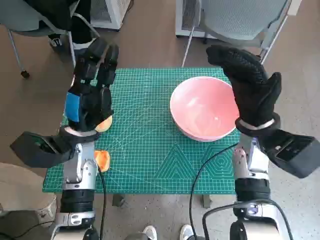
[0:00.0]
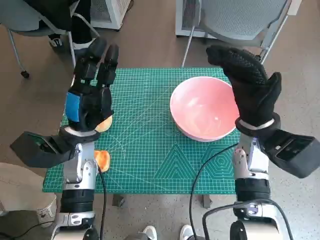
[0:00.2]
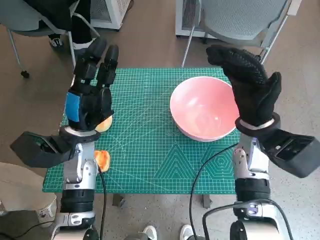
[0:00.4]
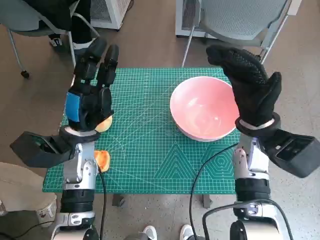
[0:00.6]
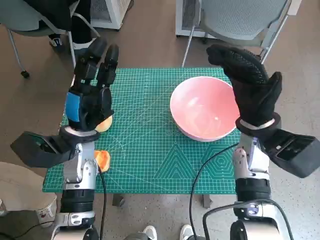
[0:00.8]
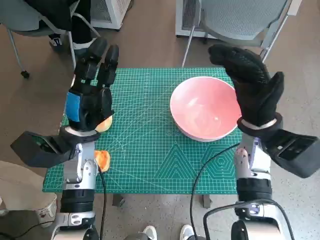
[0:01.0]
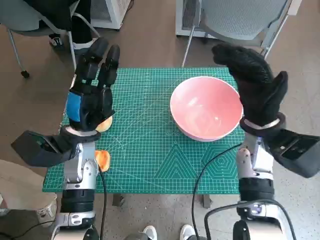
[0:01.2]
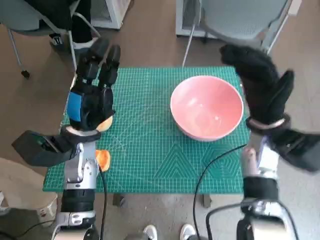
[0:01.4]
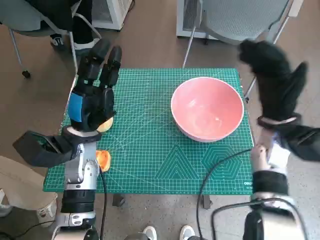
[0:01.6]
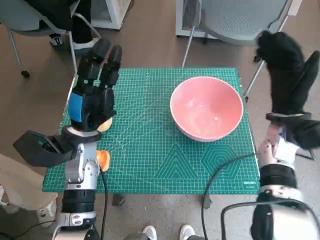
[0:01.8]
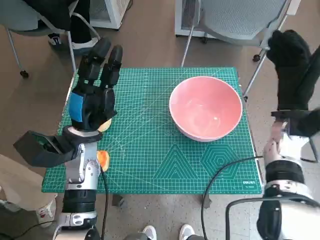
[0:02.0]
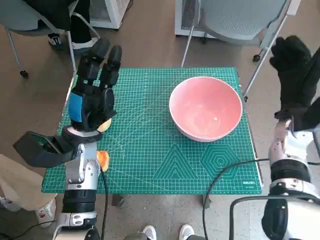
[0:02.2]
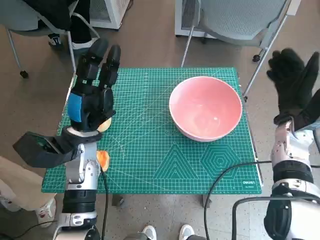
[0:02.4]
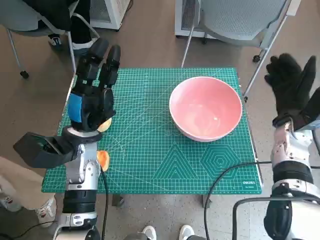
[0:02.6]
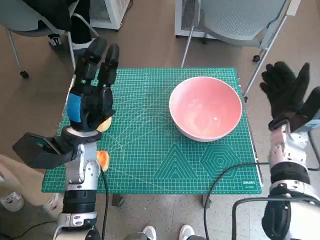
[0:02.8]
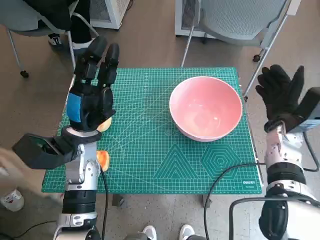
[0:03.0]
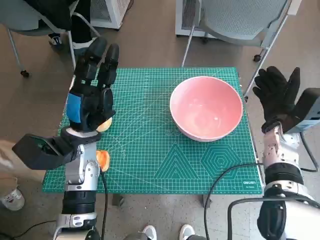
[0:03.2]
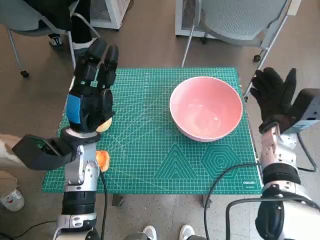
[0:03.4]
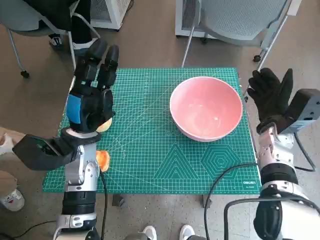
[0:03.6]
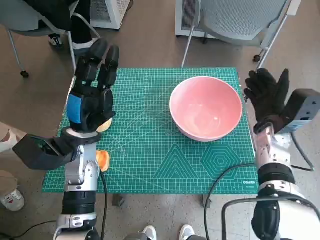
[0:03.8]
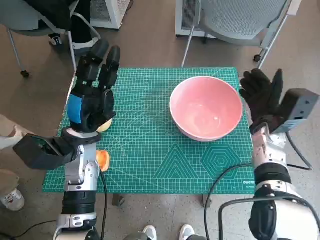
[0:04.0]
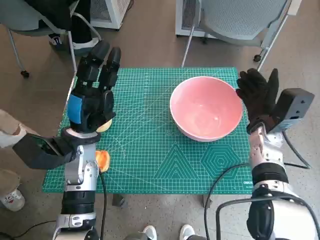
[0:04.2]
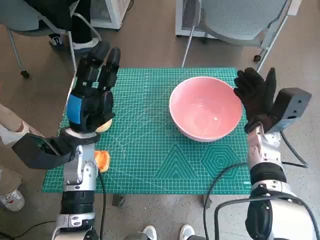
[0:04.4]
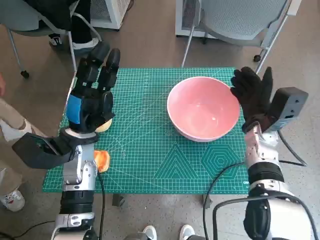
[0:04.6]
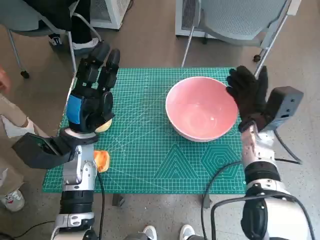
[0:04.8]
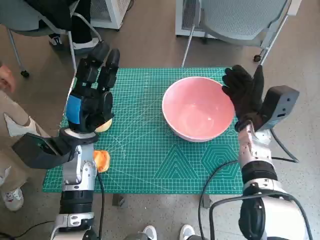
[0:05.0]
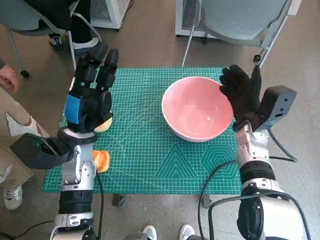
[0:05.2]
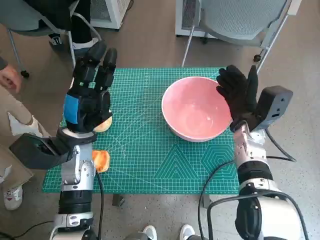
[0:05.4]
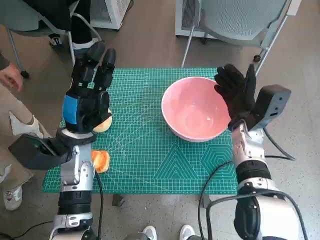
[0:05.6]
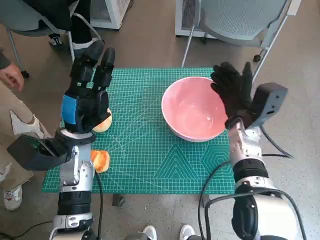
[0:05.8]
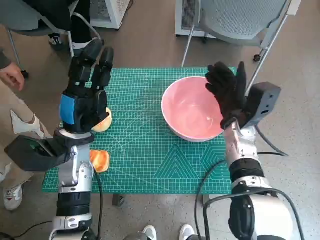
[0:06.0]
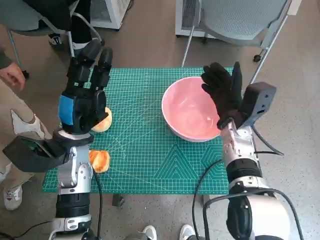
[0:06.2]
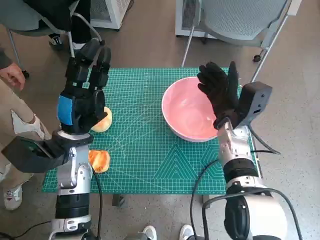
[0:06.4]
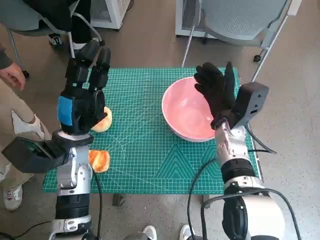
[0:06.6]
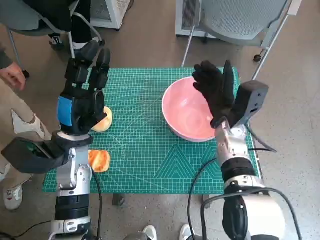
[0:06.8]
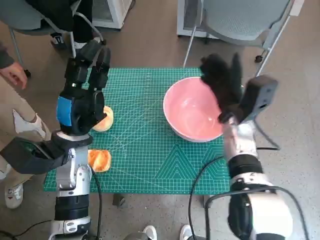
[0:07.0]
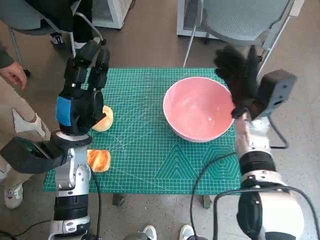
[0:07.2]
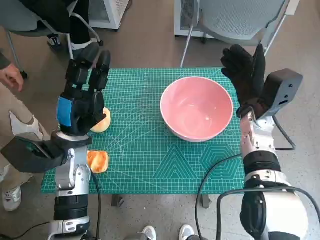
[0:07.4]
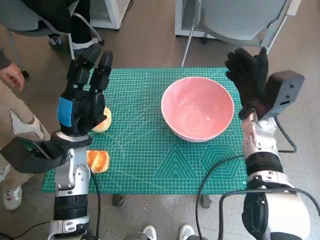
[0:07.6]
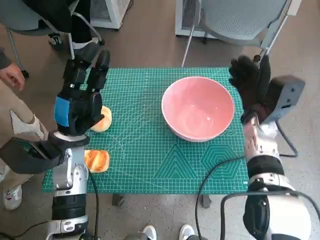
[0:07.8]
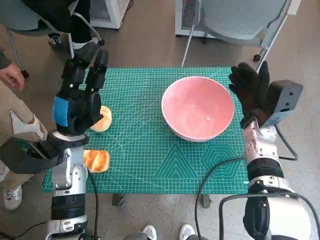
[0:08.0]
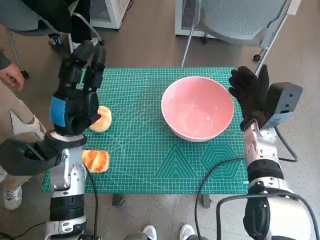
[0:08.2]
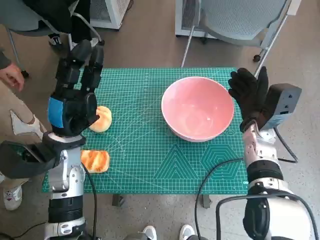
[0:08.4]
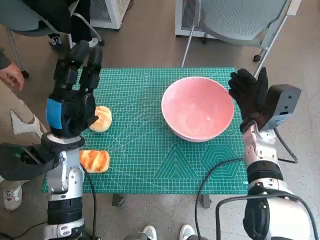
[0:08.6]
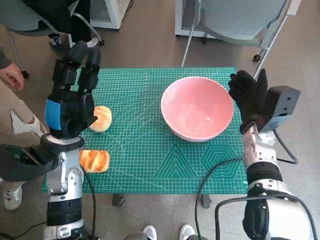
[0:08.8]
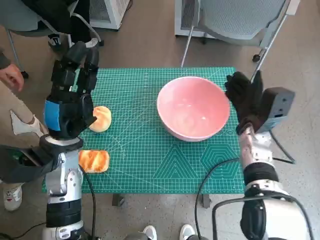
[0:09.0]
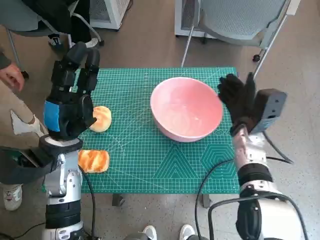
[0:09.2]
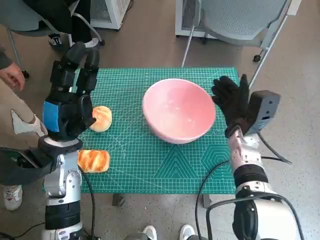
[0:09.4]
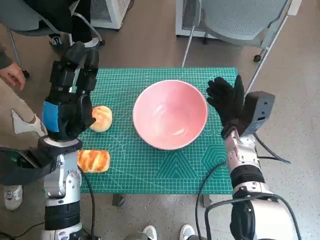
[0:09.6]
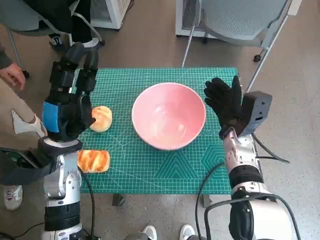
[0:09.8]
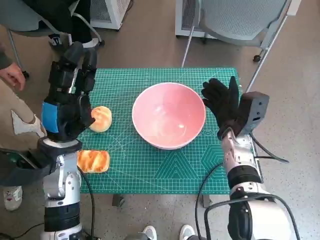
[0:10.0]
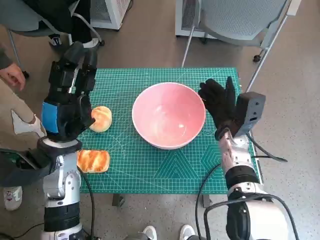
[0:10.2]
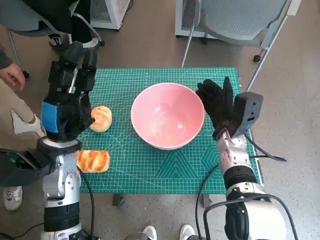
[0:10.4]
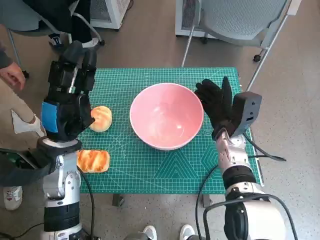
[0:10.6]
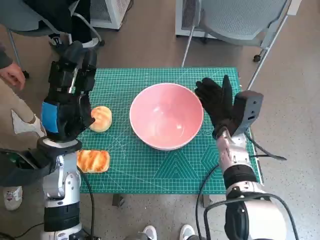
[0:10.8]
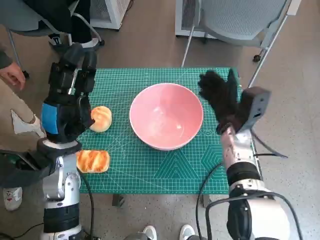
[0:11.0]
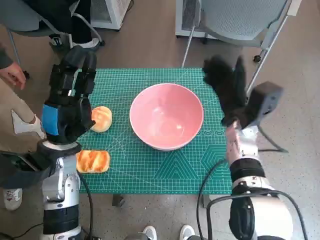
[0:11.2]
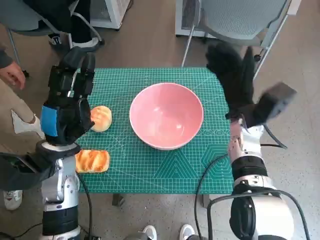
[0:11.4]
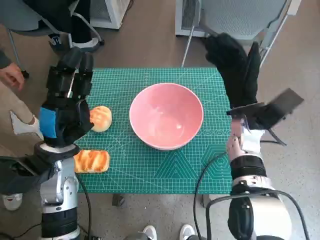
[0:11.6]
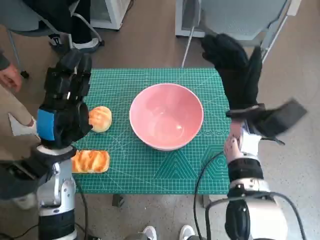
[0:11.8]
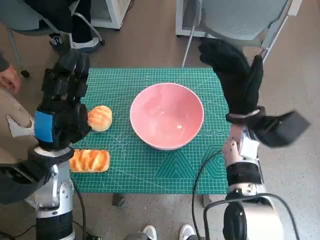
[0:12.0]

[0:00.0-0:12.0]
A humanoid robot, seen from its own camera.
Step, 0:00.0 to 0:11.0: Move the pink bowl to the center of table with right hand.
0:01.6 to 0:03.0: The right hand ends up some 5 cm from where it was.
0:03.0 to 0:04.4: The hands stay close to where they were, moving slightly.
0:04.4 to 0:06.0: The right hand travels to the left by some 5 cm.
0:09.0 to 0:10.4: The right hand moves about 5 cm.
0:10.4 to 0:12.0: The right hand travels upward by roughly 5 cm.

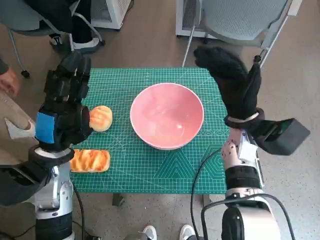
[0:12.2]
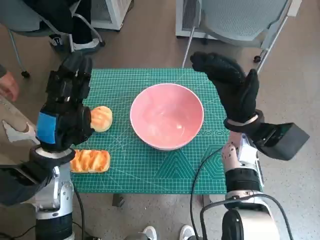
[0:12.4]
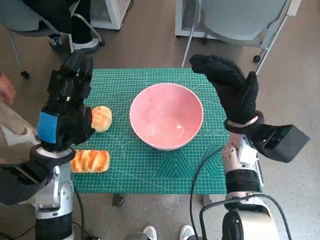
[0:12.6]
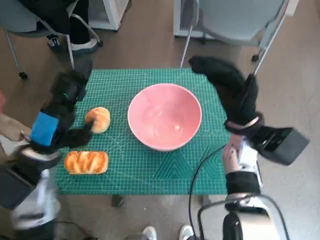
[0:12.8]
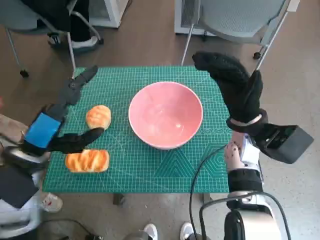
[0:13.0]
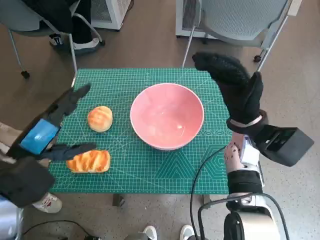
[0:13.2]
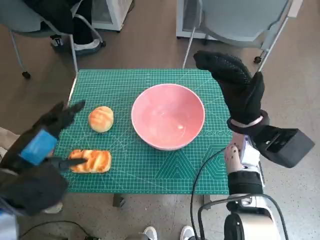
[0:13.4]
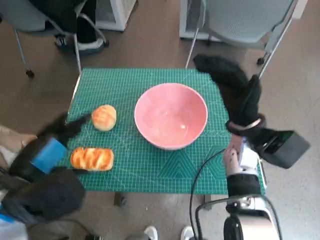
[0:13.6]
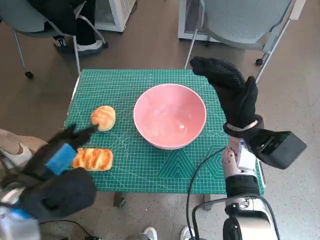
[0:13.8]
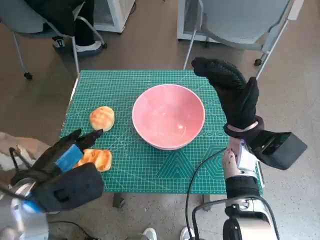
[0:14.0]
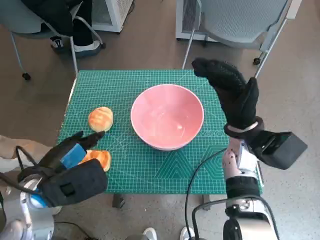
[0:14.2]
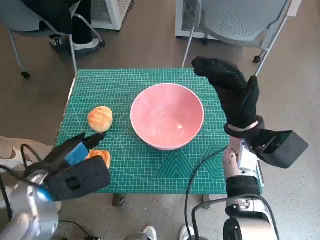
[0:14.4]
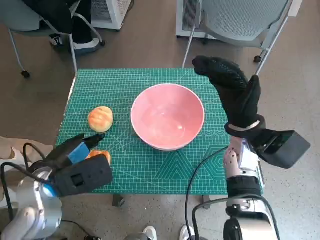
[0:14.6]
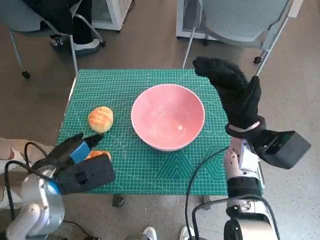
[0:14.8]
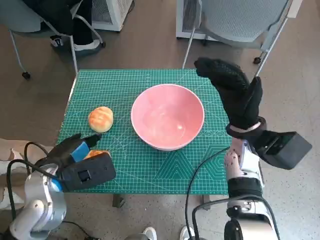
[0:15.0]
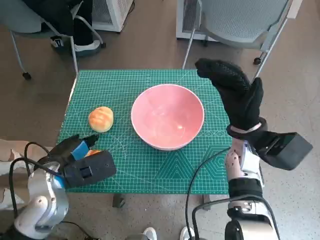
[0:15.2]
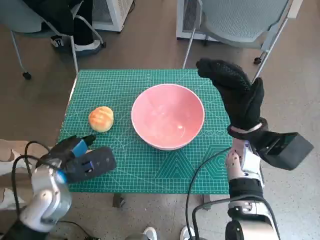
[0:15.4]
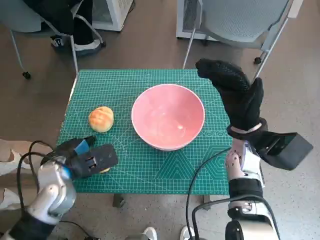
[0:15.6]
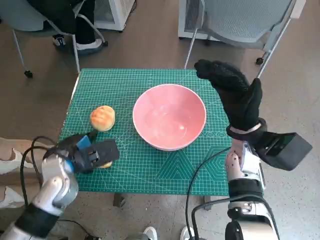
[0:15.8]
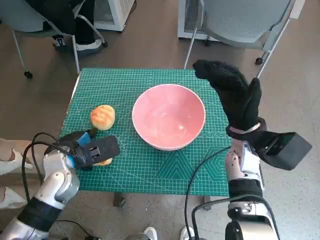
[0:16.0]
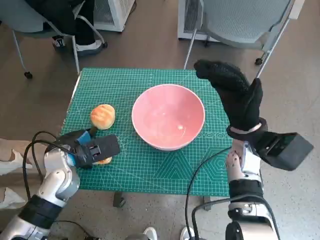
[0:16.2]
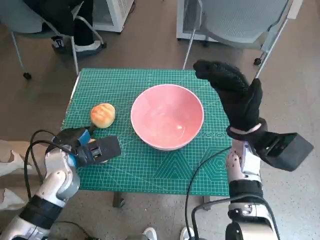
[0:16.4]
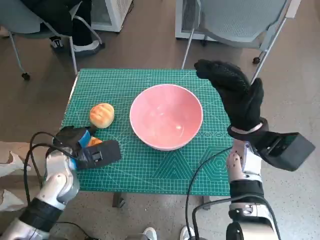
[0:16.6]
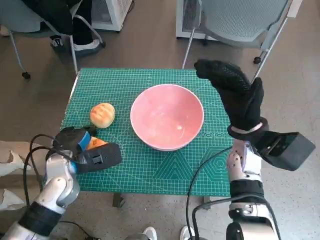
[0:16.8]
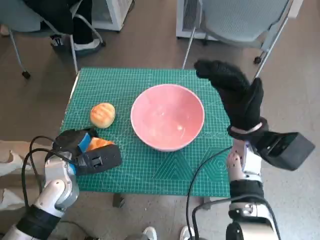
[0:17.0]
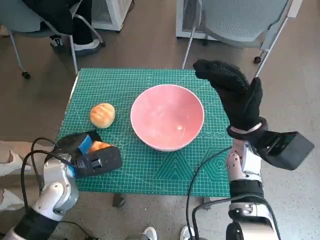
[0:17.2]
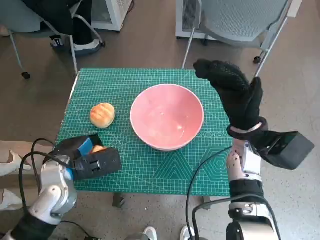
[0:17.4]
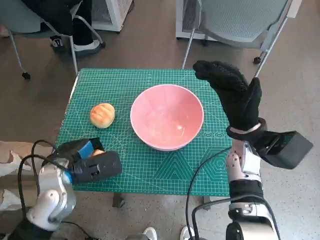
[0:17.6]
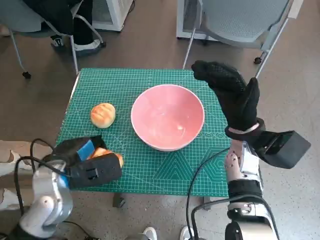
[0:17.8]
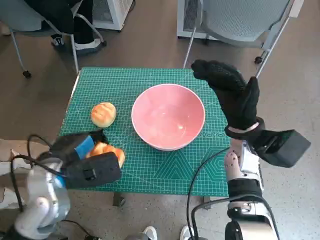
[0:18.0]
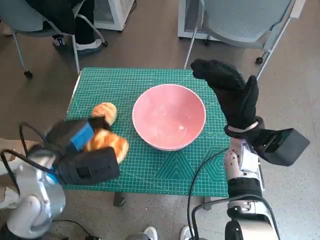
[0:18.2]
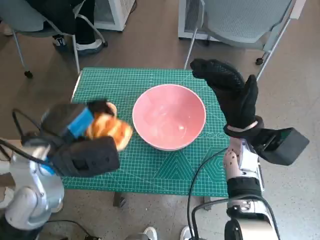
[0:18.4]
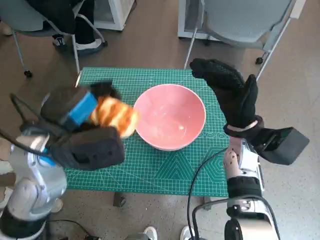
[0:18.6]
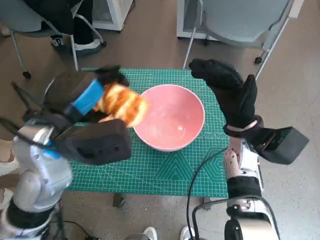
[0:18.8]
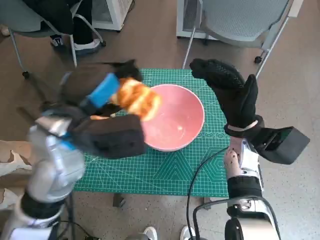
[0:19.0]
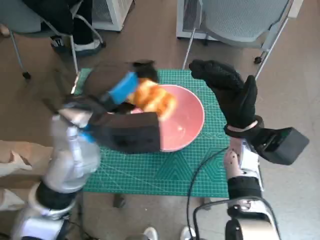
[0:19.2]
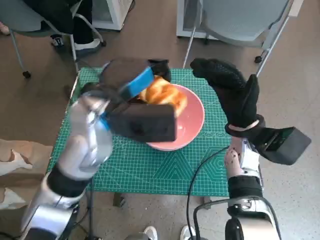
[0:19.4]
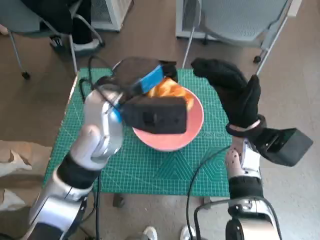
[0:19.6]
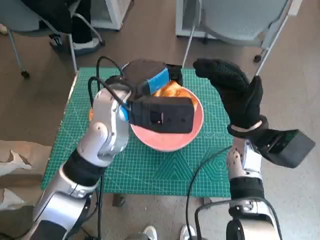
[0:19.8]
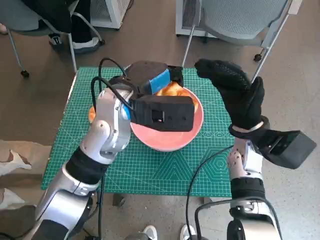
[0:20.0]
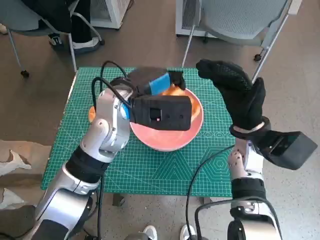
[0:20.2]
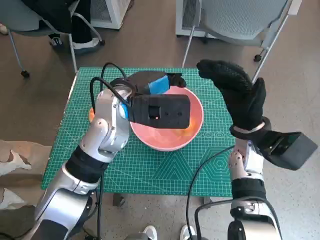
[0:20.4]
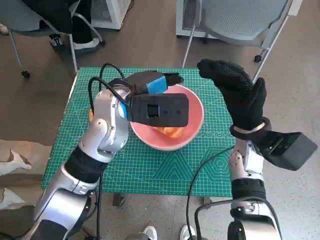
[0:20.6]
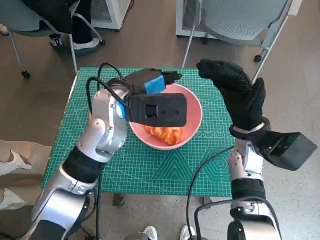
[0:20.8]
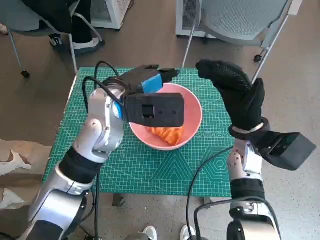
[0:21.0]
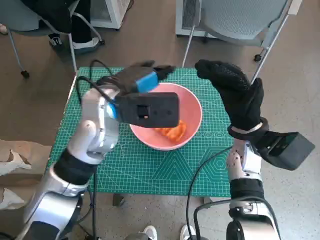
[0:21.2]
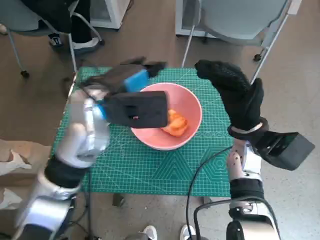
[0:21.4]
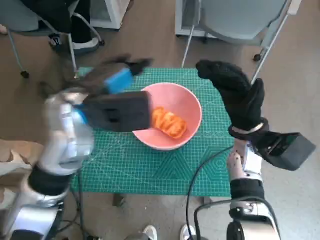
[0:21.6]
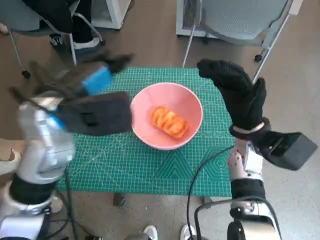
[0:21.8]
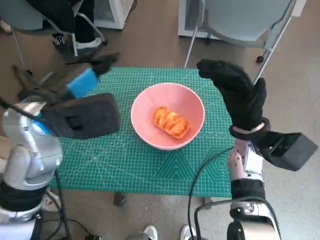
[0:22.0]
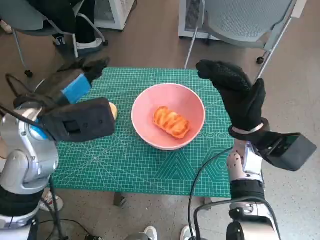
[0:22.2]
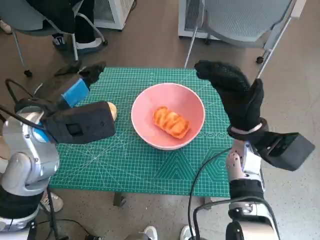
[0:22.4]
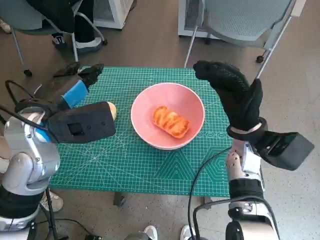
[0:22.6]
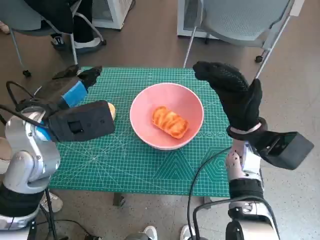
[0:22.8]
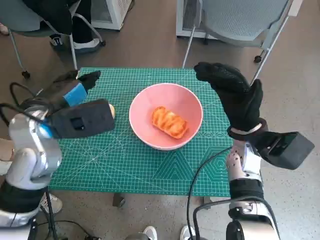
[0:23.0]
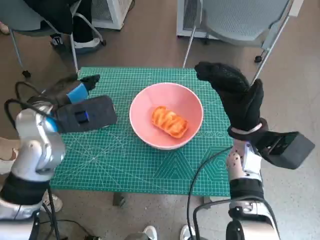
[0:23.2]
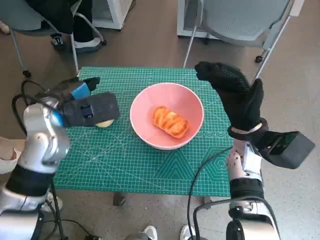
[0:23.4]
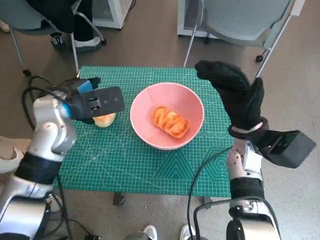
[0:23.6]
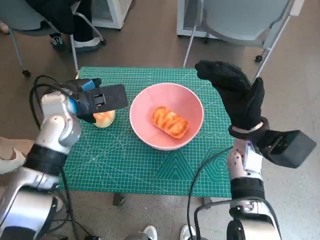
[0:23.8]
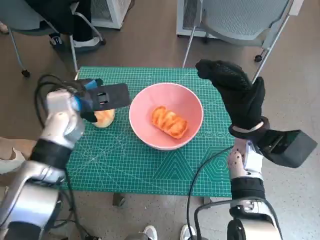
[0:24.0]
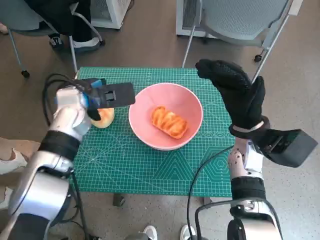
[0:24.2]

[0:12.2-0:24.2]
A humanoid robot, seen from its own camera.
Step, 0:12.2 to 0:16.8: Grasp the long bread with left hand.
Step, 0:17.0 to 0:20.6: Place the long bread in pink bowl with left hand.
0:12.2 to 0:13.8: The left hand moves backward, approximately 5 cm.
0:13.8 to 0:15.2: The left hand travels downward and forward by some 10 cm.
0:15.2 to 0:16.6: The left hand moves some 5 cm.
0:16.6 to 0:18.2: The left hand goes roughly 10 cm upward.
0:18.2 to 0:19.8: The left hand heads to the right, forward and upward, covering some 15 cm.
0:19.8 to 0:21.2: There are only small adjustments of the hands.
0:21.2 to 0:22.6: The left hand shifts approximately 10 cm to the left and backward.
0:22.6 to 0:24.2: The left hand shifts approximately 10 cm forward and downward.
